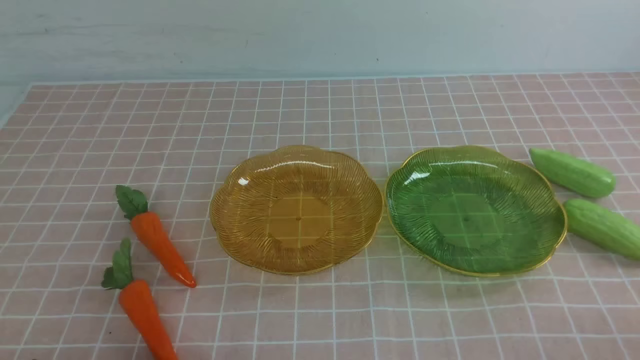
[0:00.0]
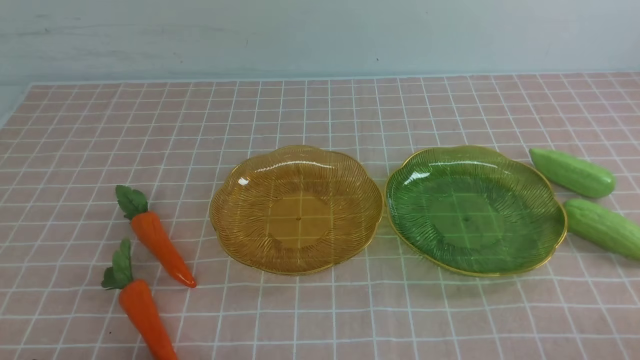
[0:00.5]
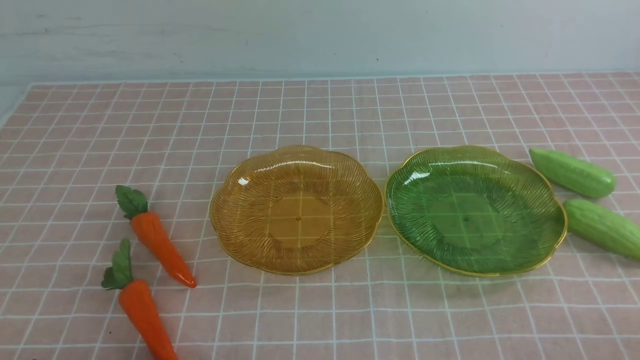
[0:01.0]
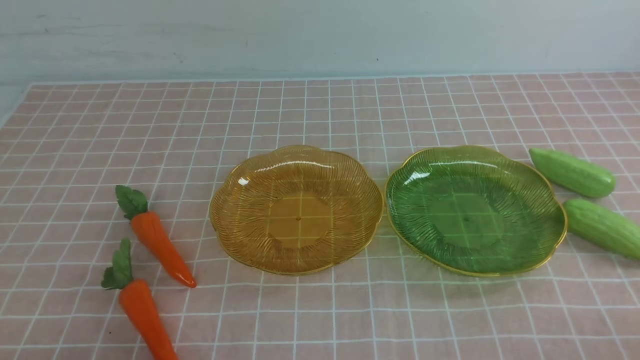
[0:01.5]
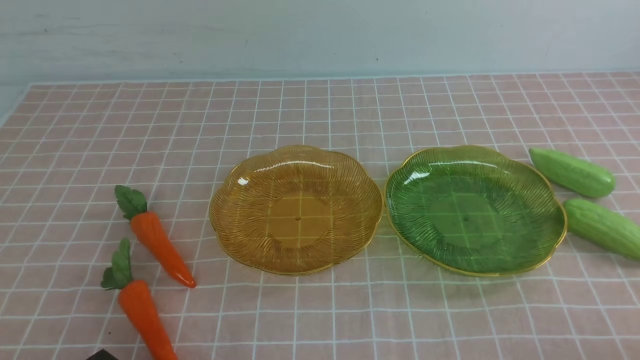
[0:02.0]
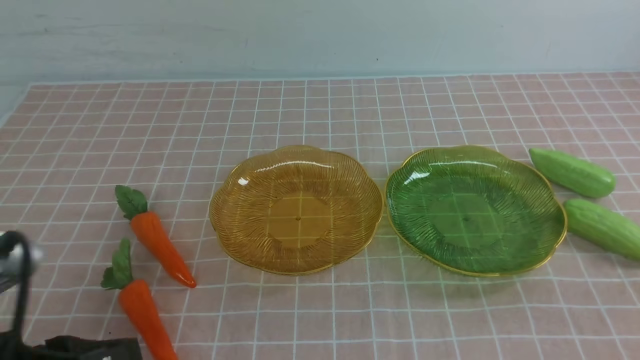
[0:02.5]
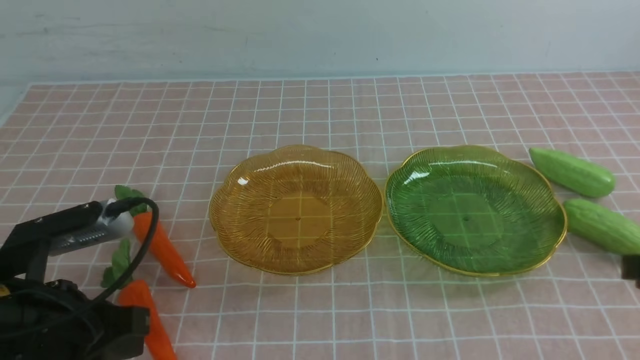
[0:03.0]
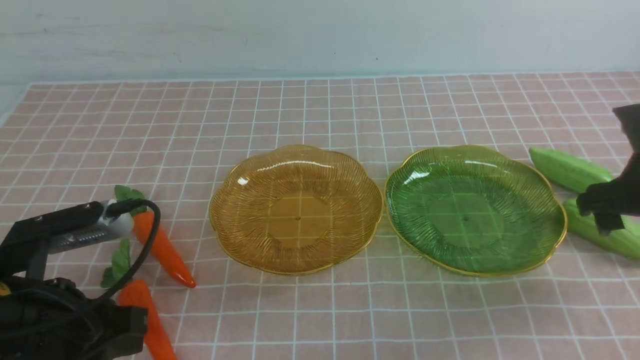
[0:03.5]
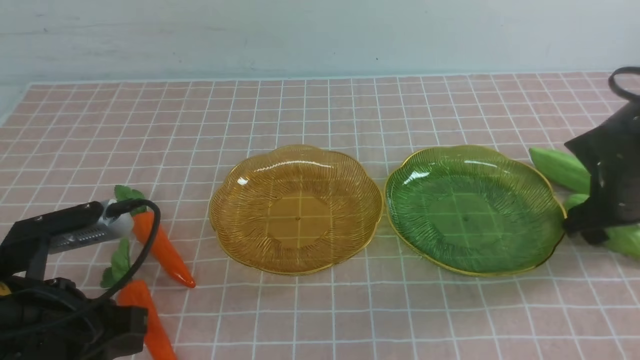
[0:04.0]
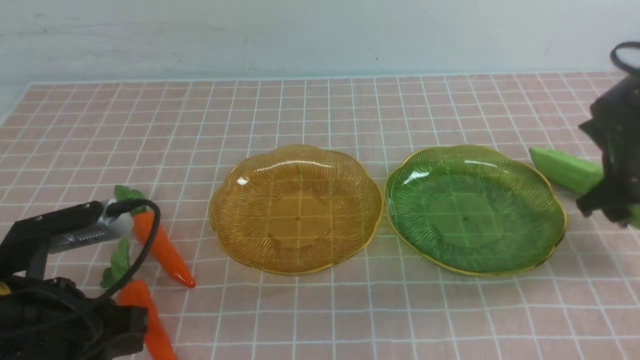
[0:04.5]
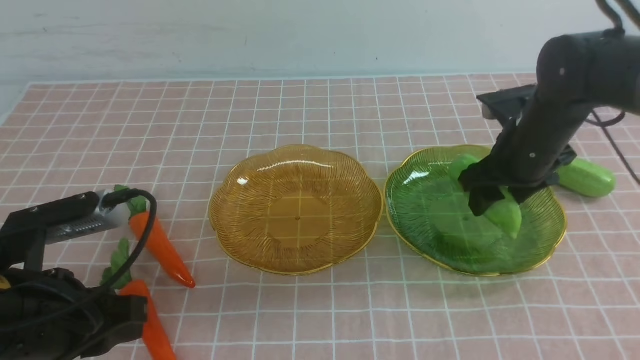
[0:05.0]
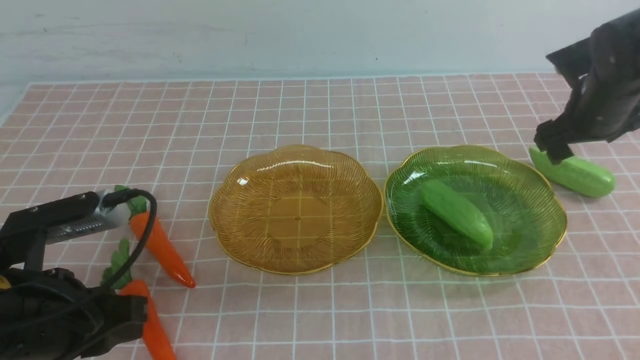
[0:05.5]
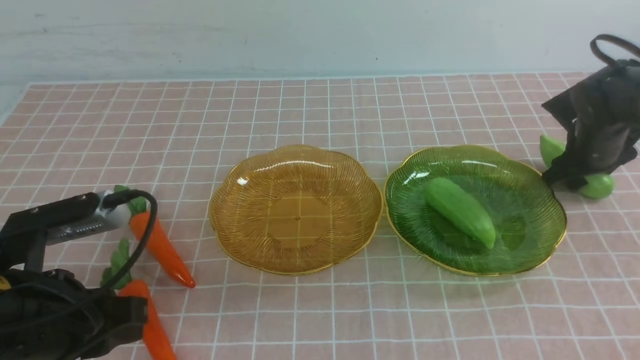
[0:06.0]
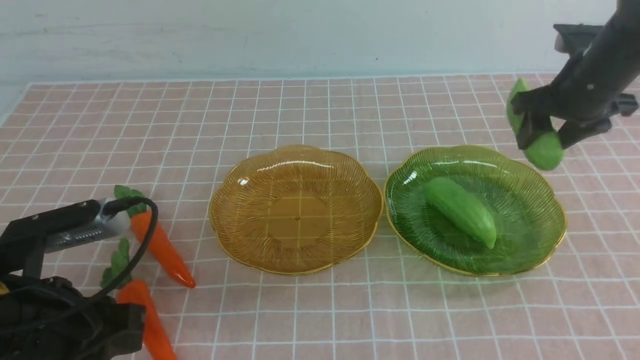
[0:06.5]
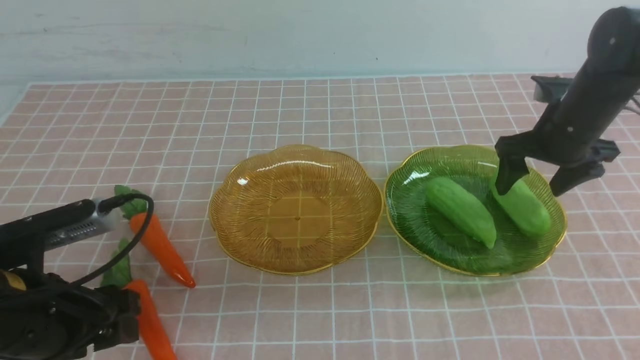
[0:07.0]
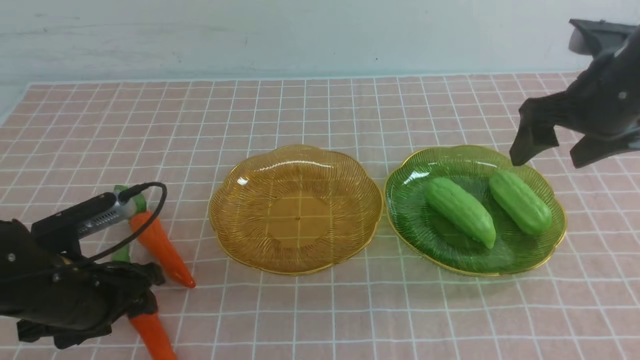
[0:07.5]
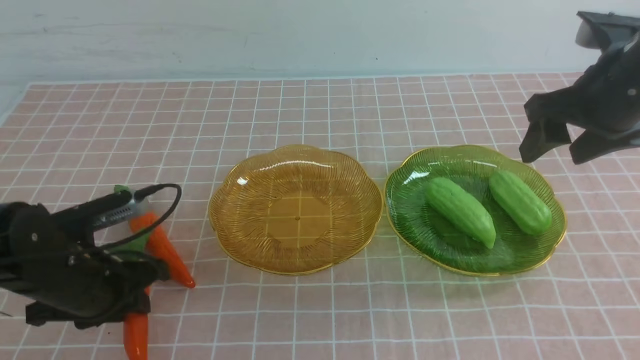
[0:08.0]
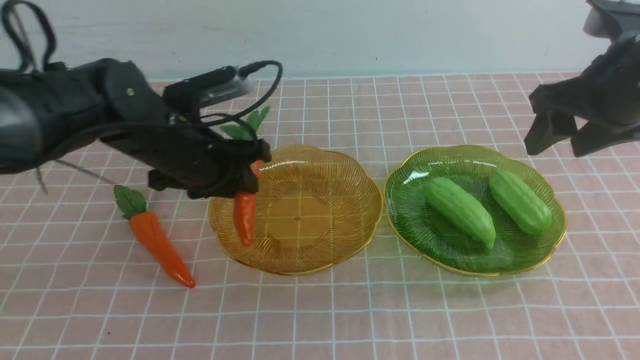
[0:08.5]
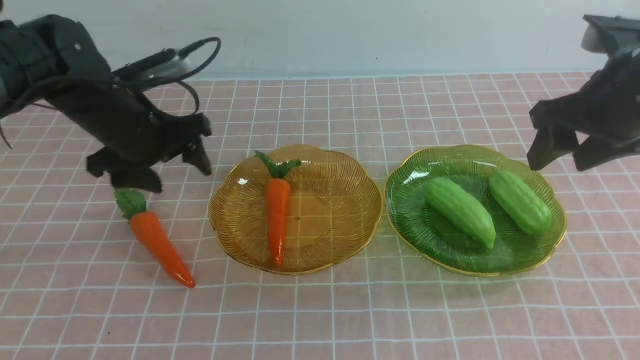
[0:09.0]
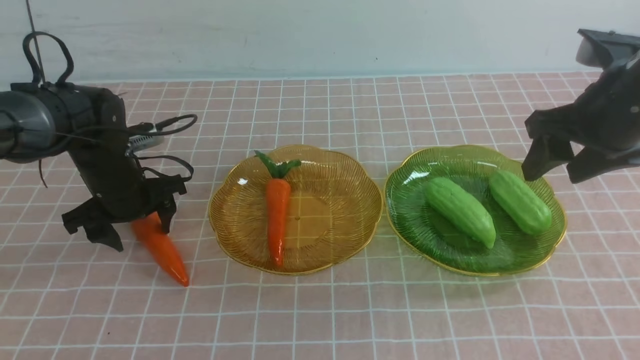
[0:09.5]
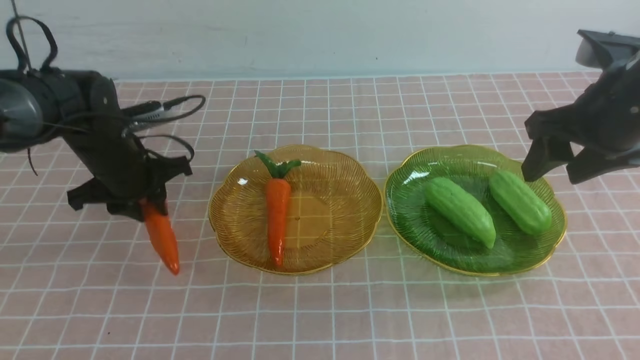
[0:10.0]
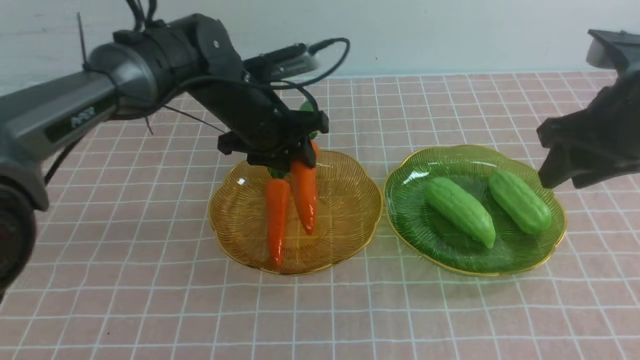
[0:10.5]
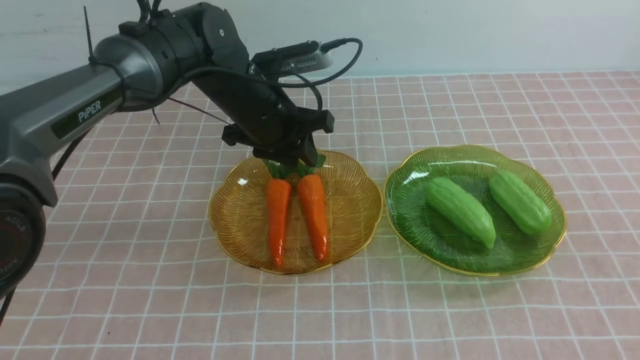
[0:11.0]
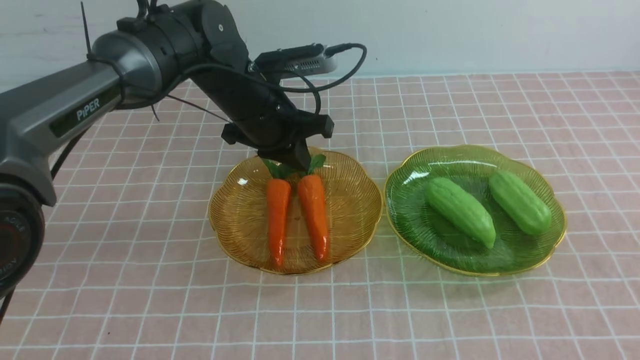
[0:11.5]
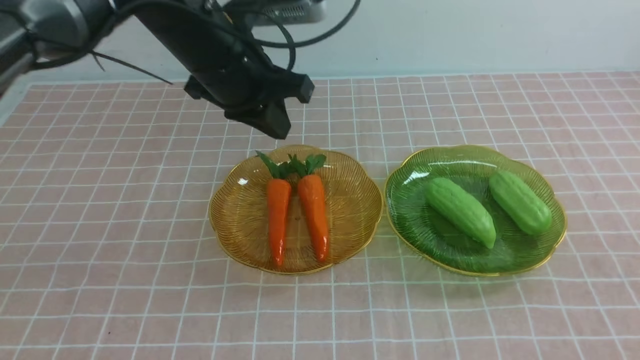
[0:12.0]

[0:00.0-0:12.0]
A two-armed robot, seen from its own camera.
Step, 0:00.0 to 0:07.0: use the right arm to grab a chayote and put it into the right plate.
Step, 0:07.5 to 0:10.5: use the left arm to grab a carrot and put it into the left plate.
0:02.0 to 0:04.0: The left gripper heads forward, covering approximately 10 cm. Meanwhile the right gripper goes about 30 cm forward, and opens.
0:04.0 to 0:06.0: The right gripper moves forward, roughly 10 cm.
0:06.0 to 0:08.0: The left gripper is displaced forward by about 10 cm, and opens, then closes once more; the right gripper moves upward, backward and to the left, about 15 cm.
0:08.0 to 0:10.0: The left gripper goes approximately 15 cm forward, and opens, then closes once more.
0:10.0 to 0:12.0: The left gripper shifts roughly 15 cm upward and to the right, and closes, while the right gripper travels backward by about 25 cm, and closes.

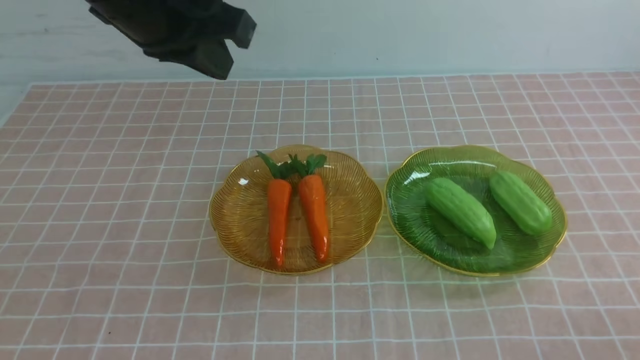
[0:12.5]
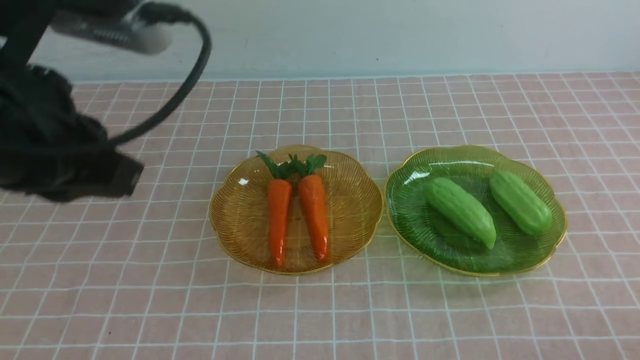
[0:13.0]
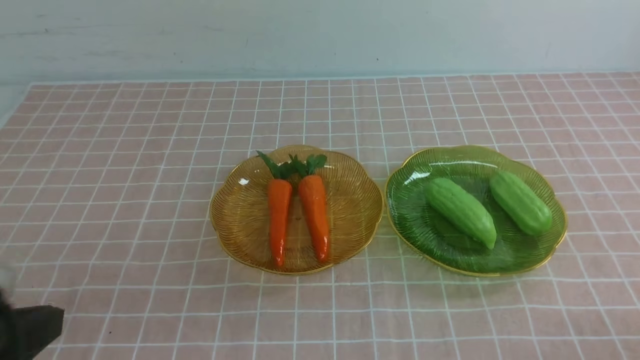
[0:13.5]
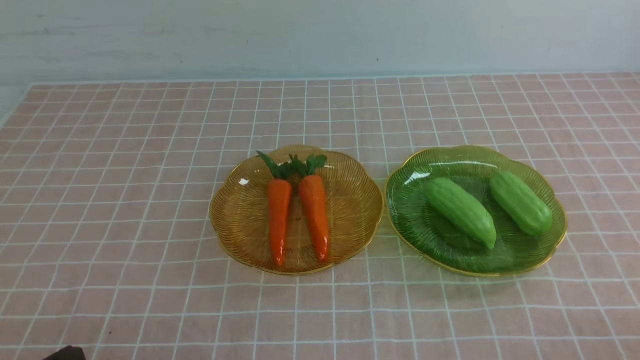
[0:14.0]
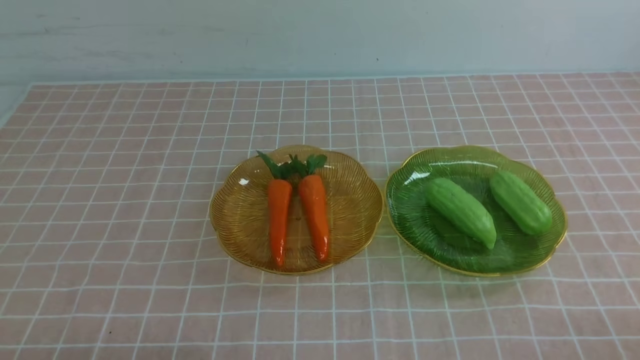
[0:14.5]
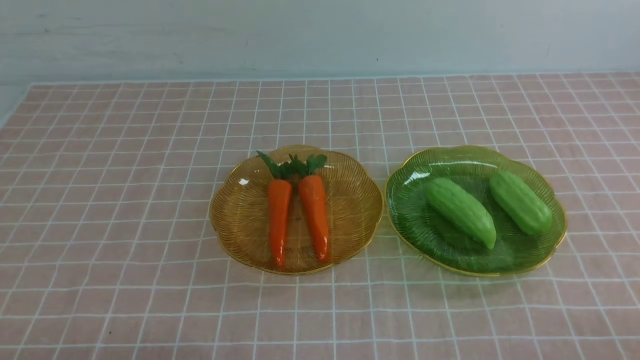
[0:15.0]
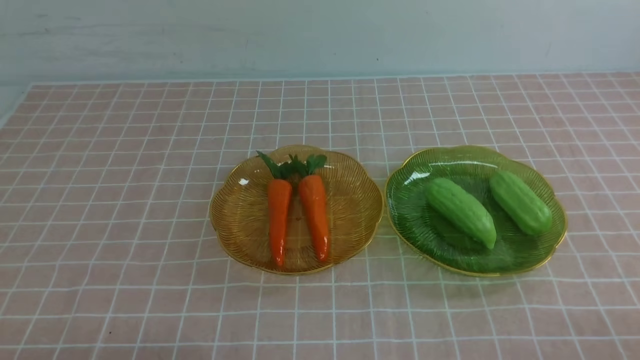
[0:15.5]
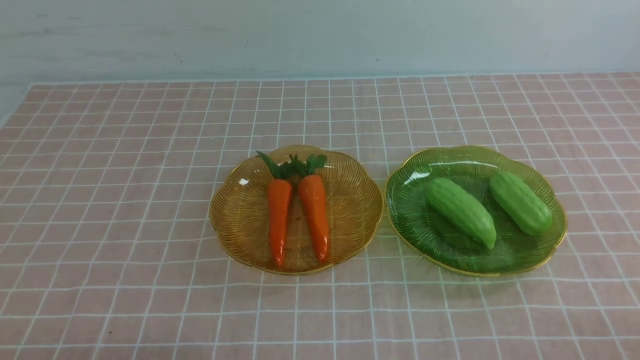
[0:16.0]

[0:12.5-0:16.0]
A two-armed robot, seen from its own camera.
0:12.5 to 0:14.5: The left gripper moves downward, backward and to the left, some 35 cm.
